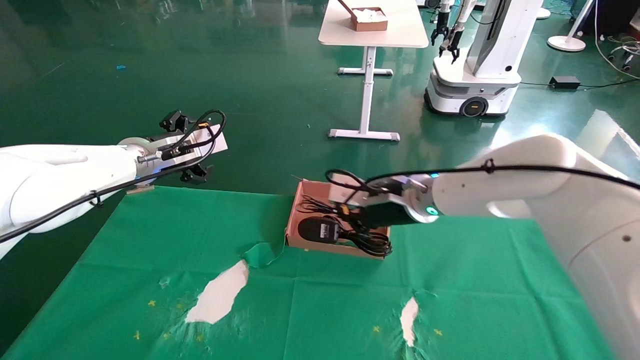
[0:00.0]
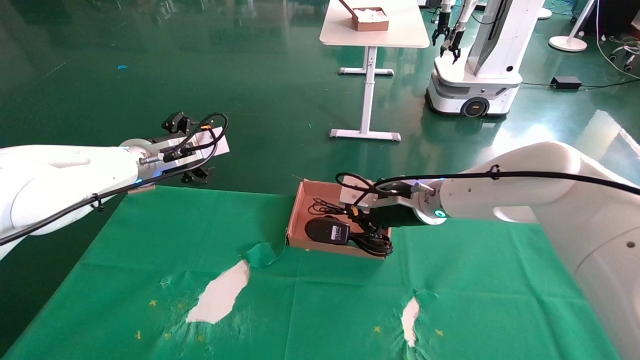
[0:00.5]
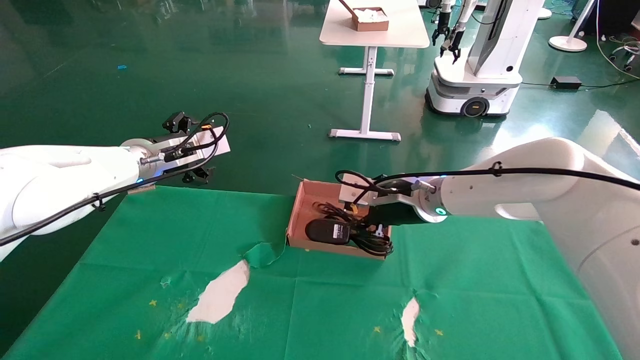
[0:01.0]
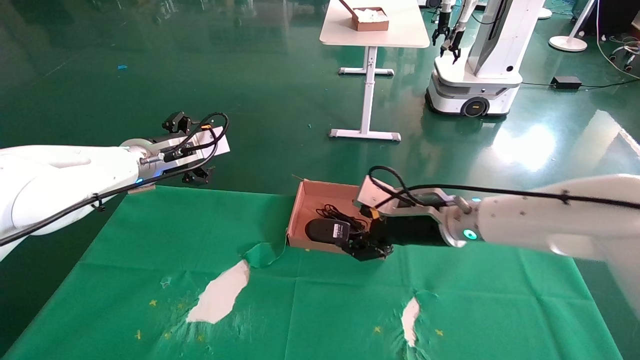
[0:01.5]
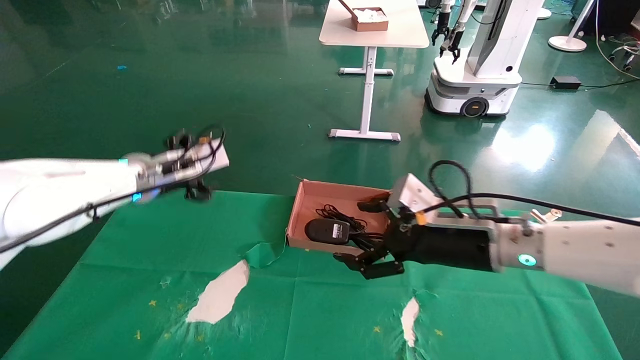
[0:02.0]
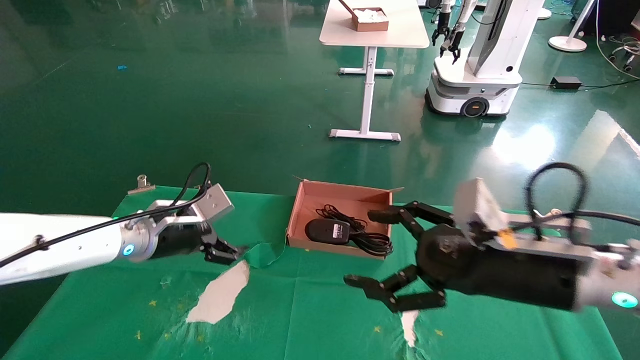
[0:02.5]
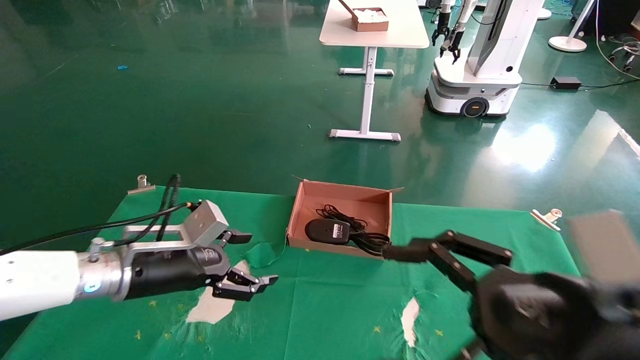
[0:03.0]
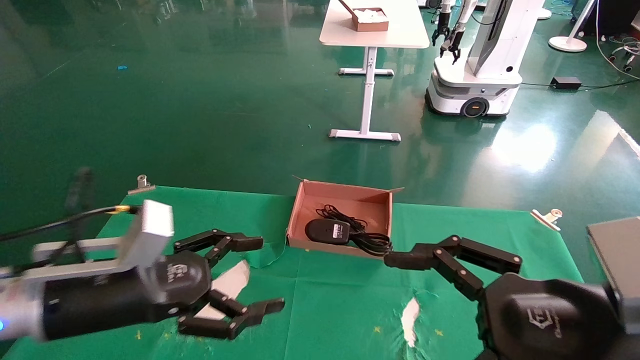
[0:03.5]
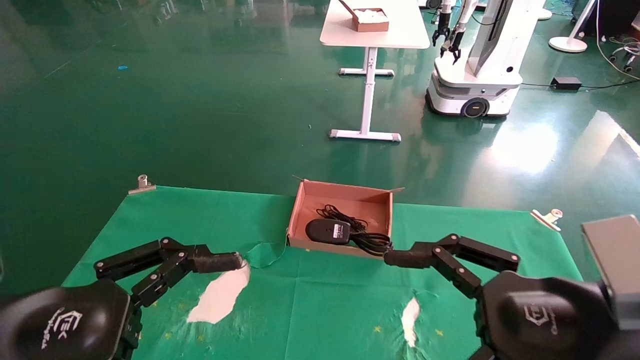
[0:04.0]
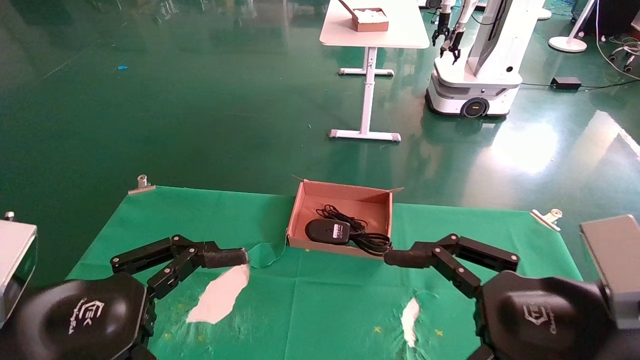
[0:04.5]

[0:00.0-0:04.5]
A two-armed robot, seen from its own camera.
Step, 0:00.0 to 0:02.5: Place the mouse and power cord into the box.
0:00.0 to 0:02.0: The right gripper heads backward and to the right, covering some 10 cm, and opens.
0:02.0 to 0:04.5: The left gripper is displaced backward by roughly 30 cm, while the right gripper travels backward by approximately 20 cm.
